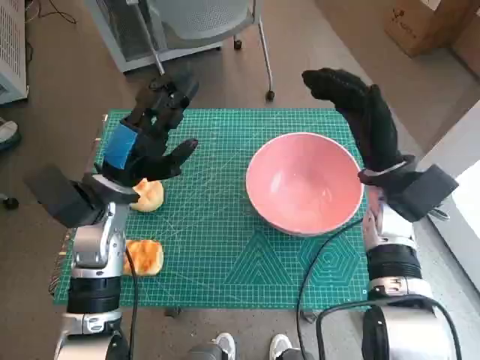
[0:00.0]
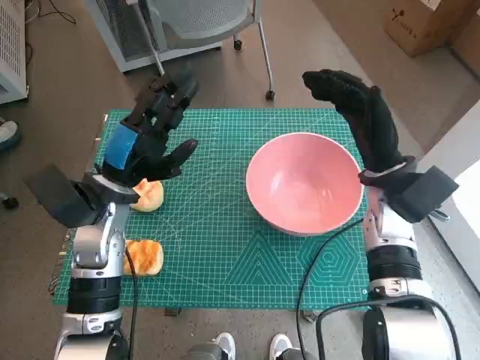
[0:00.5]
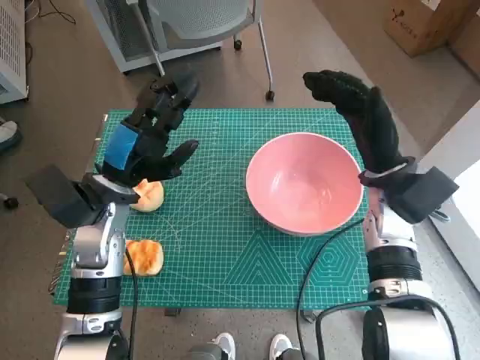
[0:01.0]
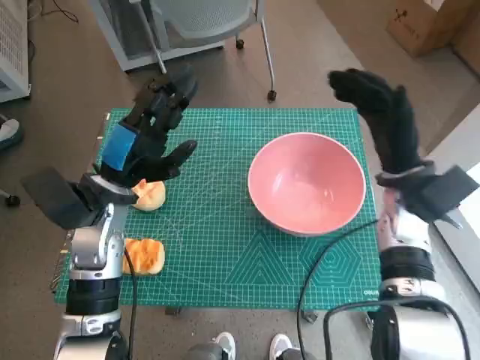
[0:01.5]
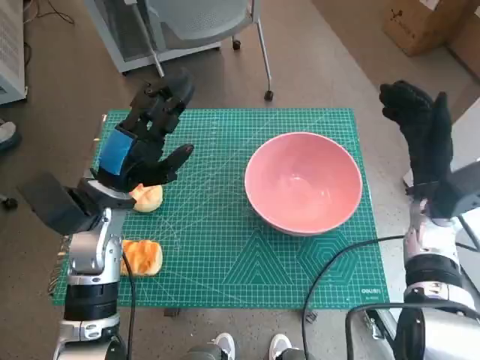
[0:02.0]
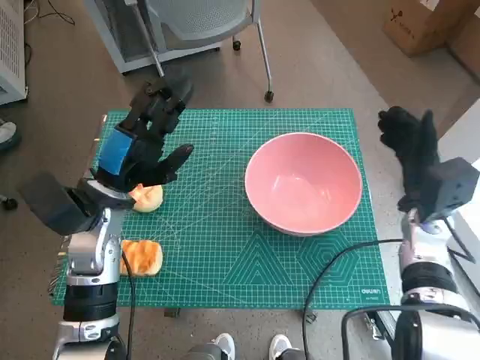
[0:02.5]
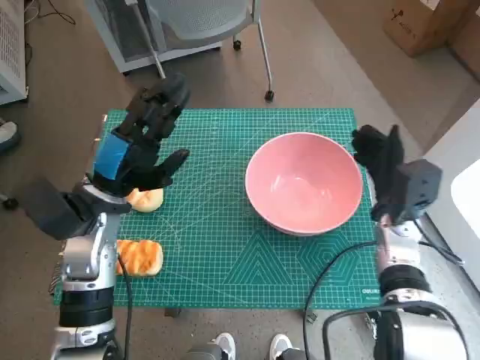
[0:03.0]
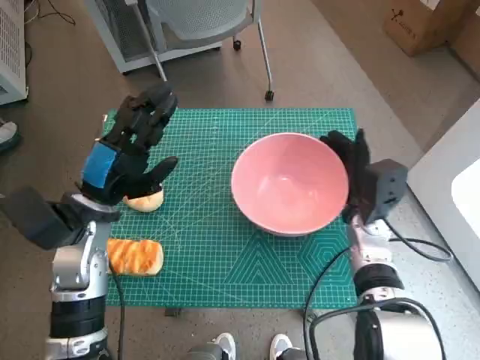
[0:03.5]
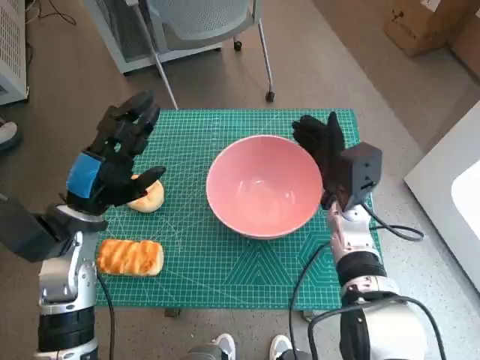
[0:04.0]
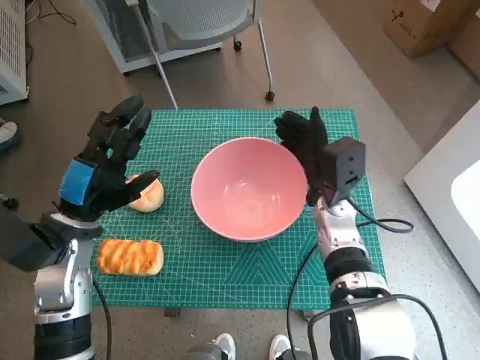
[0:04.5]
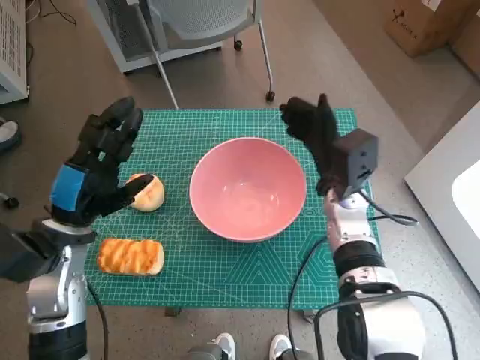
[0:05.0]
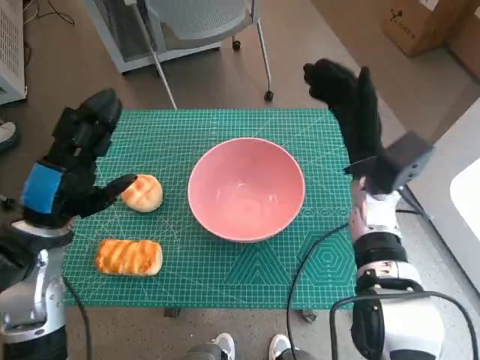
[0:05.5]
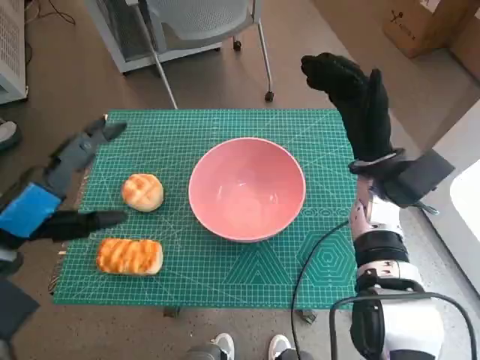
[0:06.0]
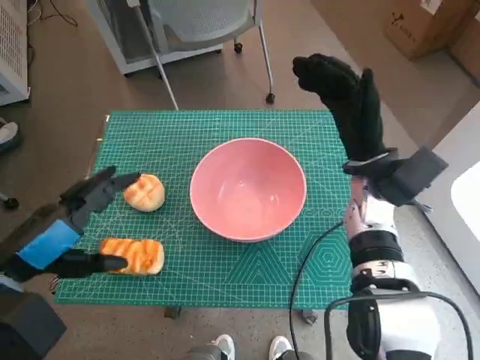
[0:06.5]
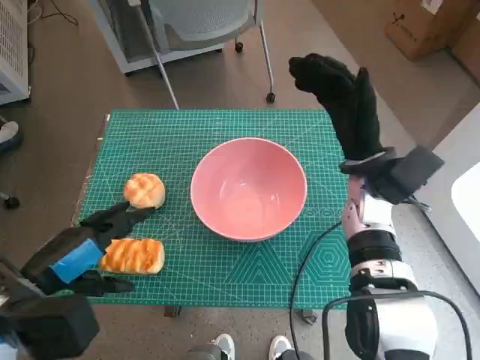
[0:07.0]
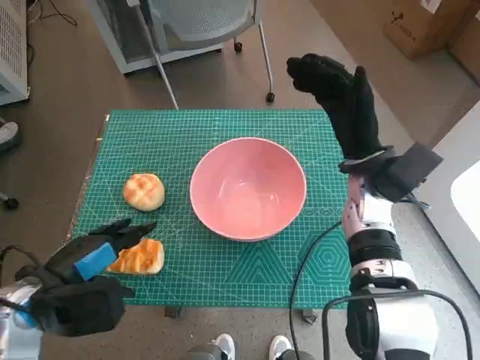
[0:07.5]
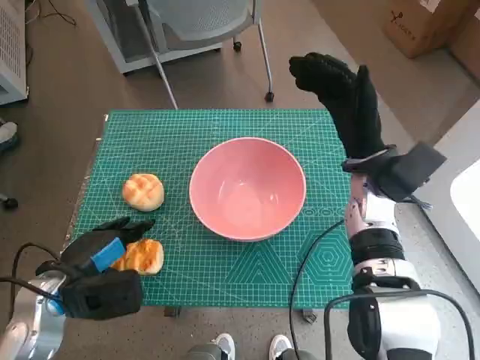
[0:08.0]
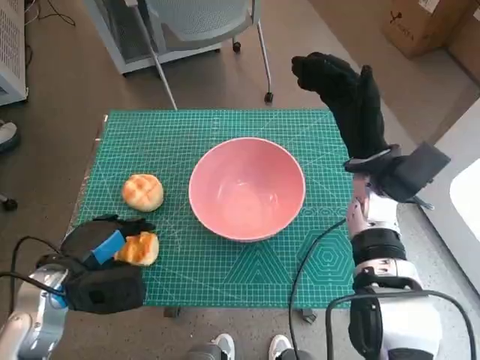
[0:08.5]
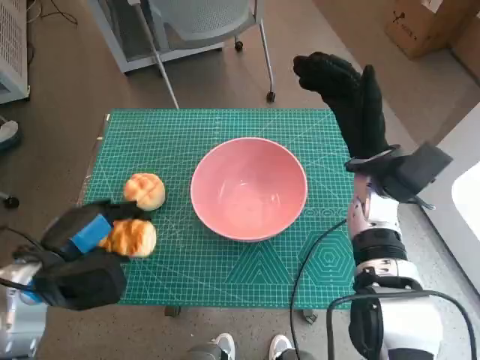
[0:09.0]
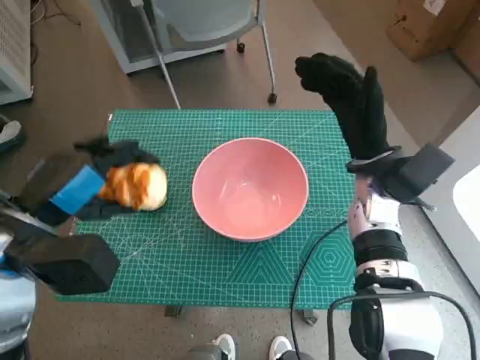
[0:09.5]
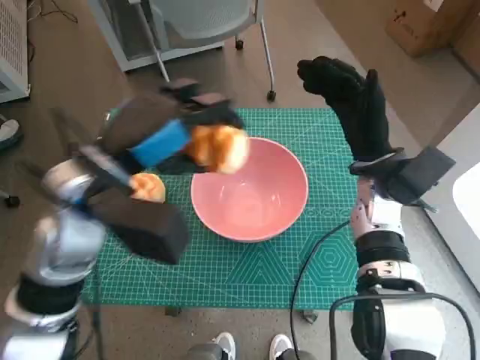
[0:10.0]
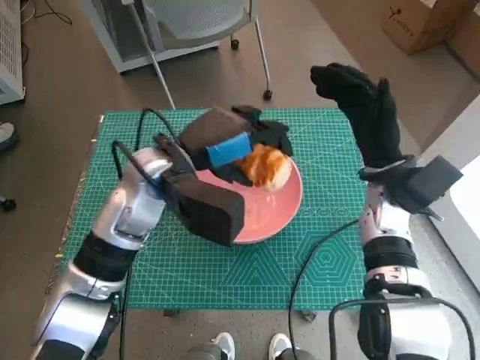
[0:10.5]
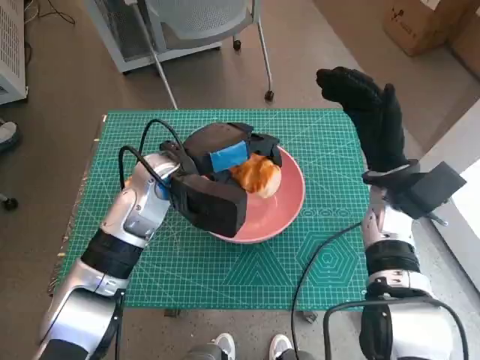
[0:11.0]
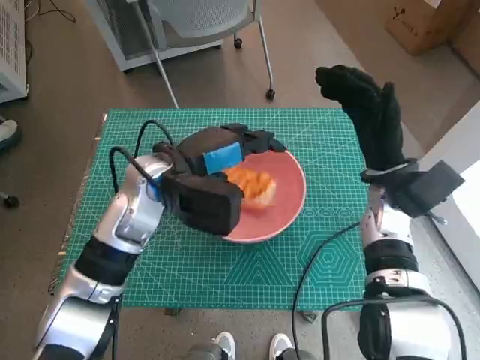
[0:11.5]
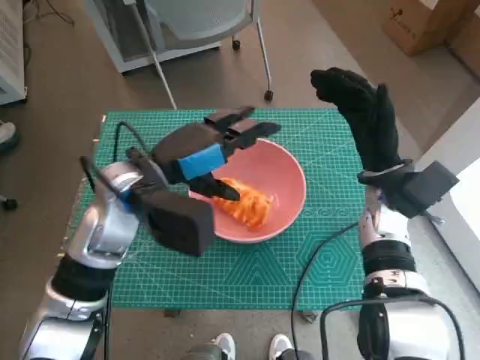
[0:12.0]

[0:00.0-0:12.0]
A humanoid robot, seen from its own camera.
Step, 0:00.0 to 0:04.5: Move the pink bowl to the center of table with right hand.
Step, 0:05.0 to 0:08.0: Grasp the long bread with left hand.
Step, 0:08.5 to 0:11.5: Place the long bread in pink bowl with left hand.
0:02.0 to 0:04.0: The right hand moves to the left, about 10 cm.
0:04.0 to 0:06.0: The right hand heads upward, covering roughly 5 cm, while the left hand moves backward and upward, about 10 cm.
0:06.0 to 0:08.0: The left hand heads downward, covering about 10 cm.
0:08.0 to 0:10.0: The left hand goes some 20 cm upward, to the right and forward.

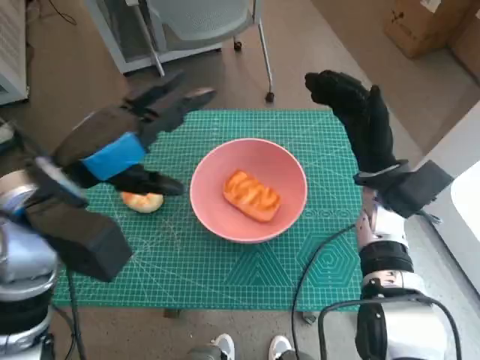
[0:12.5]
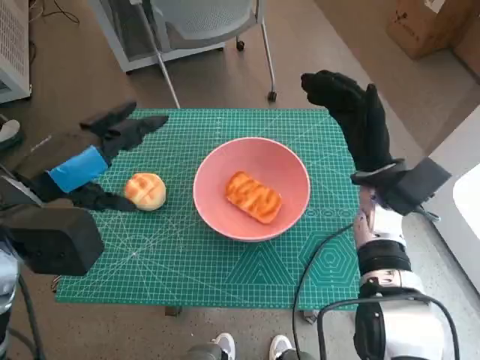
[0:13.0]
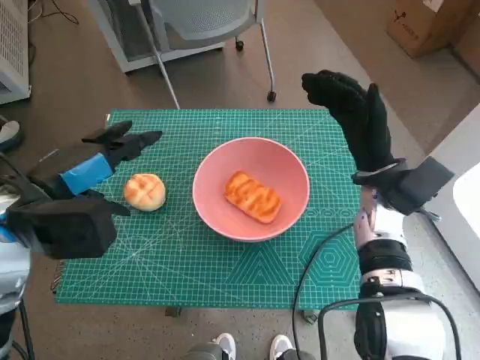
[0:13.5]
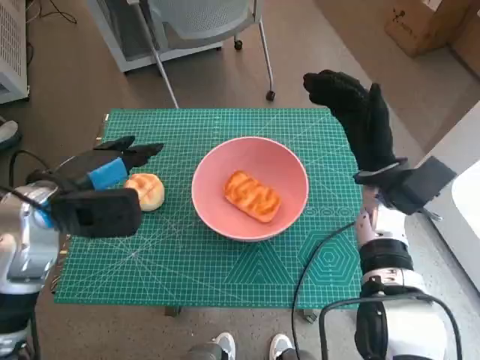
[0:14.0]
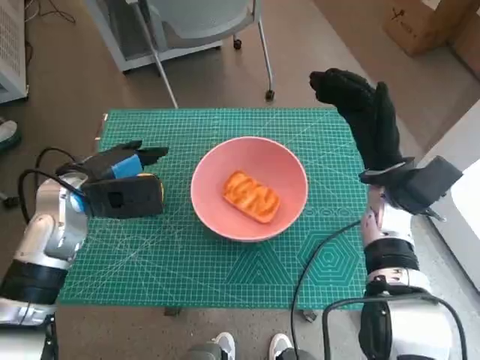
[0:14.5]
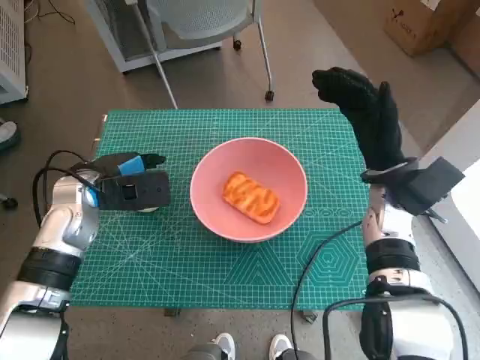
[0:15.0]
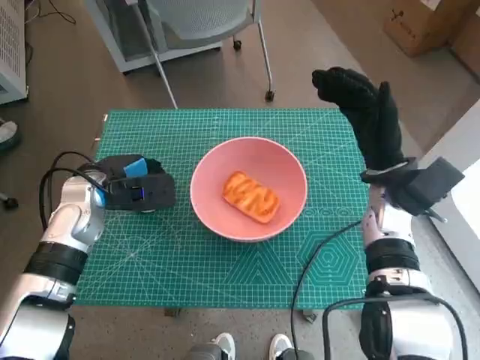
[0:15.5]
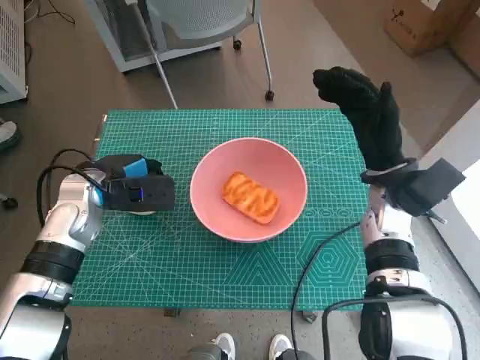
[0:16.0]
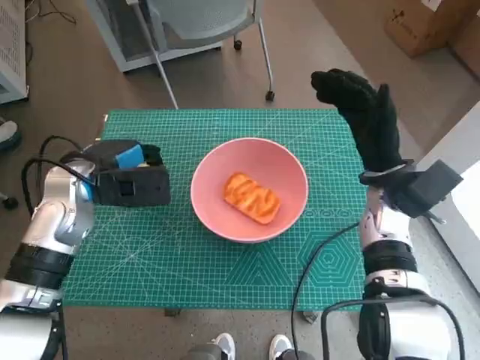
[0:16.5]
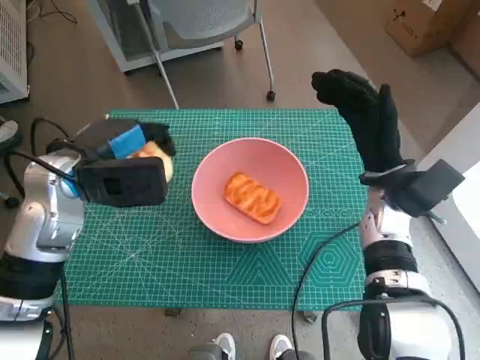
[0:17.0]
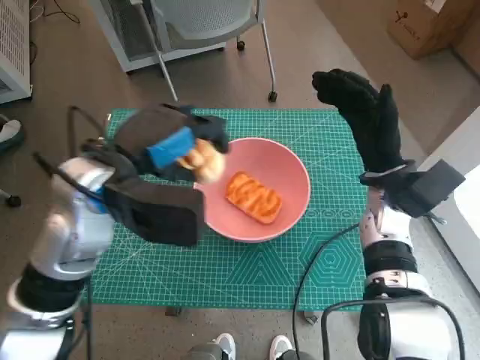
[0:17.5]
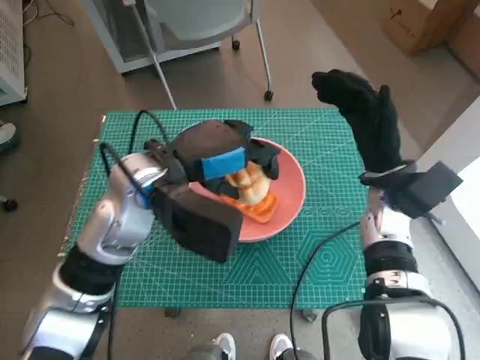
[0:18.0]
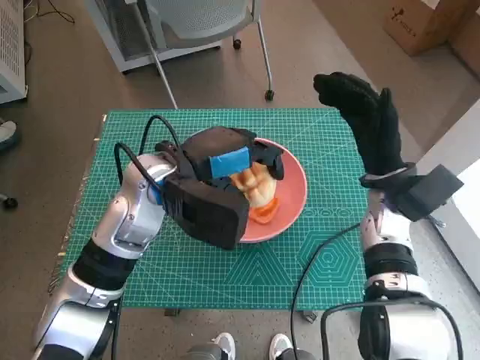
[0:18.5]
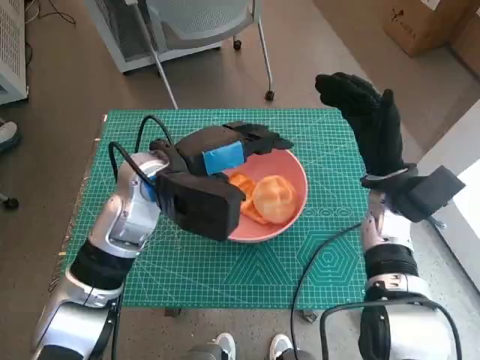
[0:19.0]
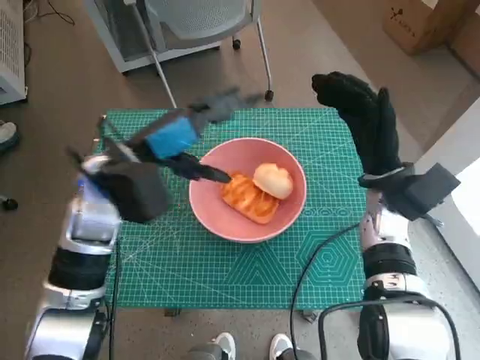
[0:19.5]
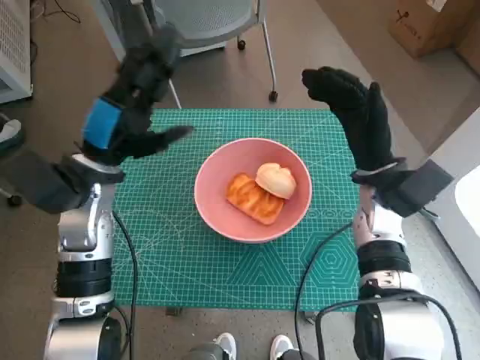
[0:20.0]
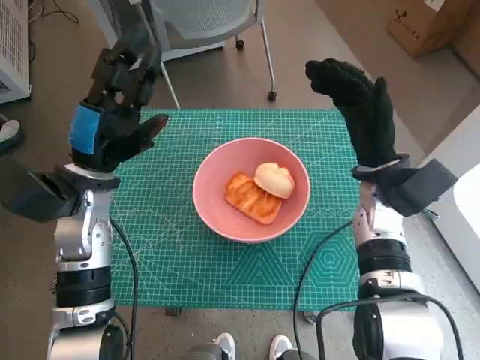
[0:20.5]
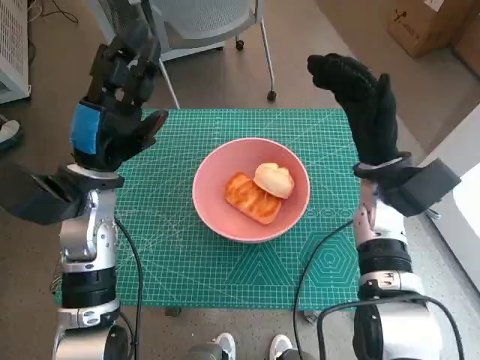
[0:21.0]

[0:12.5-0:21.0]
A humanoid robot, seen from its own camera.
Step, 0:12.5 to 0:15.5: Grasp the round bread with left hand.
Step, 0:16.0 to 0:18.5: Place the round bread in pink bowl with left hand.
0:12.5 to 0:14.5: The left hand shifts roughly 10 cm downward.
0:14.5 to 0:16.5: The hands stay close to where they were, moving slightly.
0:16.5 to 0:19.0: The left hand travels to the right by roughly 10 cm.
0:19.0 to 0:21.0: The left hand goes about 10 cm to the left.
